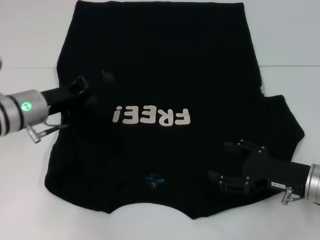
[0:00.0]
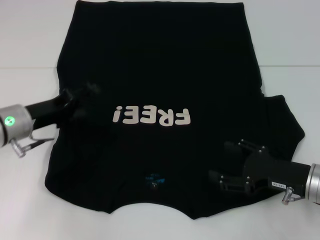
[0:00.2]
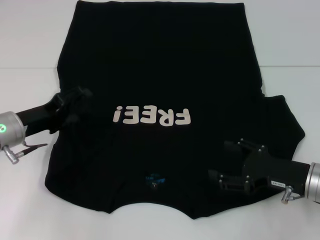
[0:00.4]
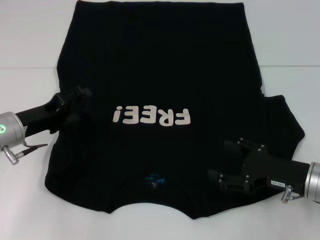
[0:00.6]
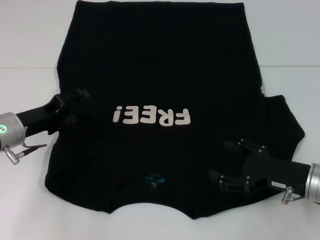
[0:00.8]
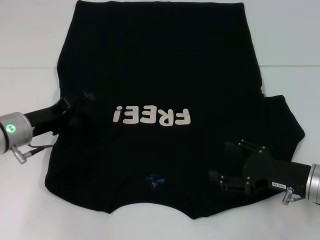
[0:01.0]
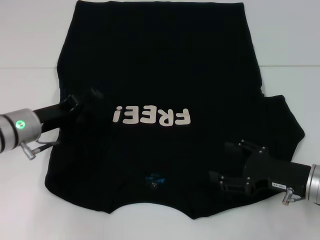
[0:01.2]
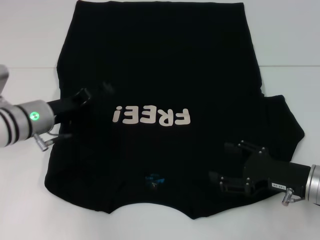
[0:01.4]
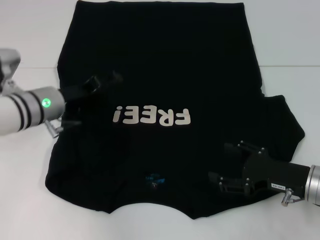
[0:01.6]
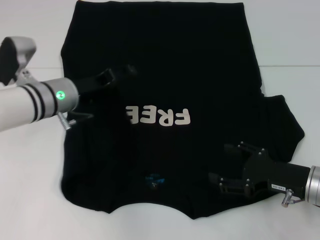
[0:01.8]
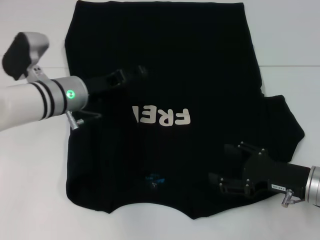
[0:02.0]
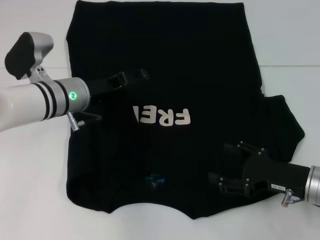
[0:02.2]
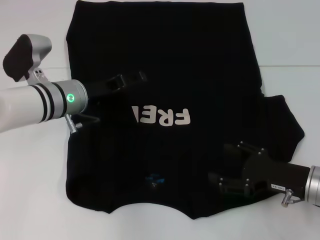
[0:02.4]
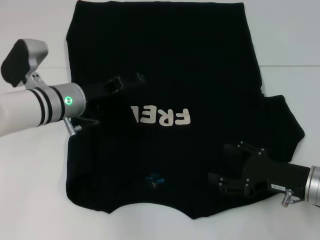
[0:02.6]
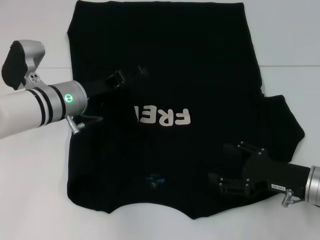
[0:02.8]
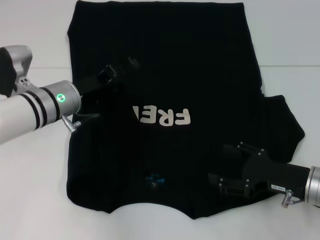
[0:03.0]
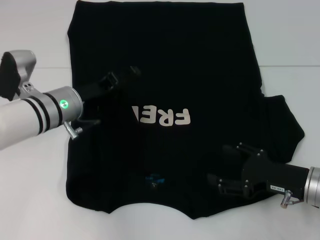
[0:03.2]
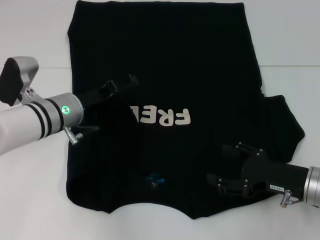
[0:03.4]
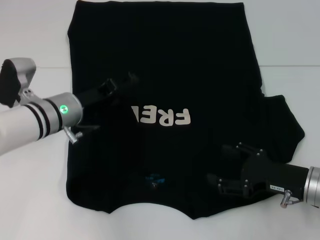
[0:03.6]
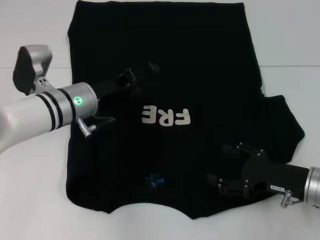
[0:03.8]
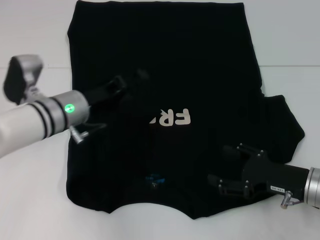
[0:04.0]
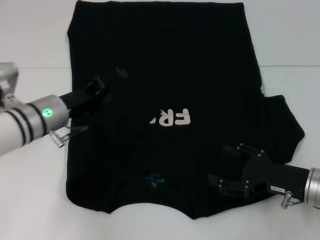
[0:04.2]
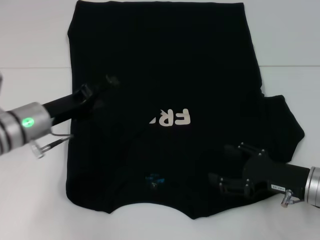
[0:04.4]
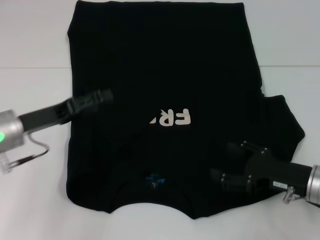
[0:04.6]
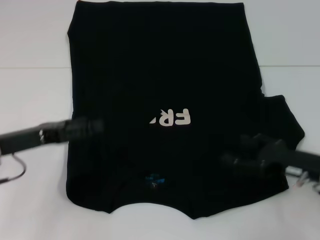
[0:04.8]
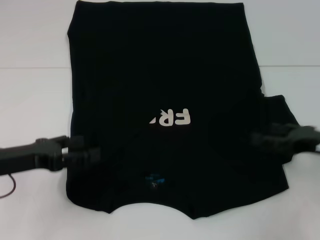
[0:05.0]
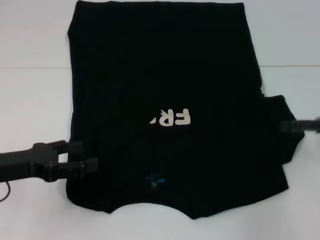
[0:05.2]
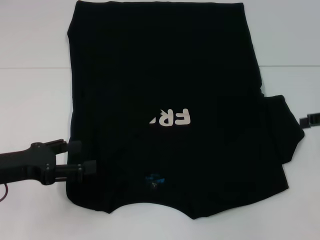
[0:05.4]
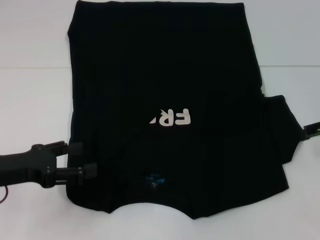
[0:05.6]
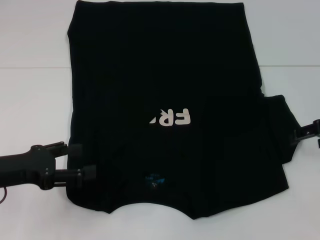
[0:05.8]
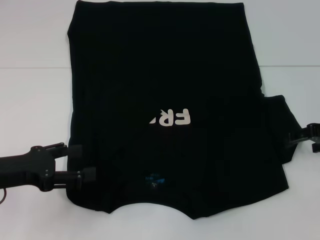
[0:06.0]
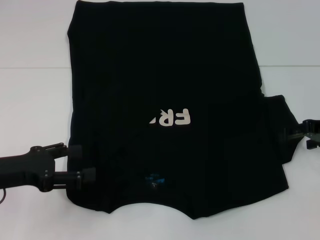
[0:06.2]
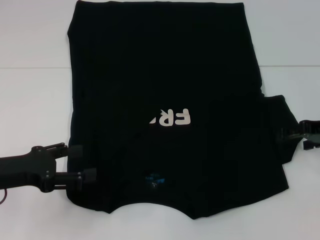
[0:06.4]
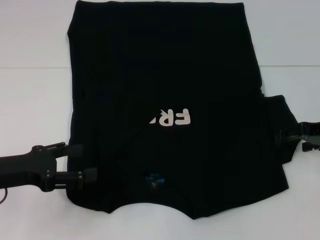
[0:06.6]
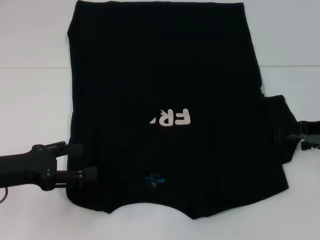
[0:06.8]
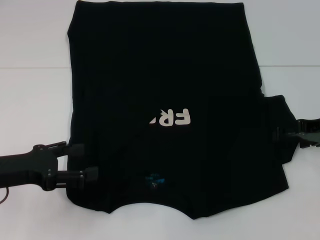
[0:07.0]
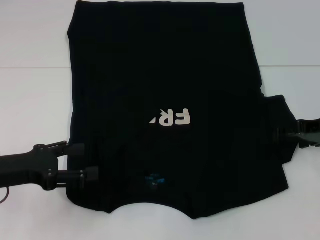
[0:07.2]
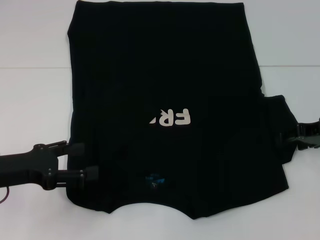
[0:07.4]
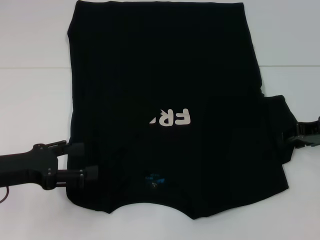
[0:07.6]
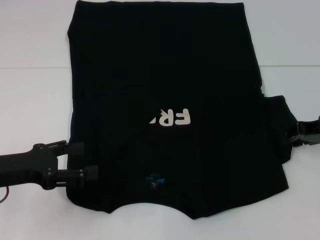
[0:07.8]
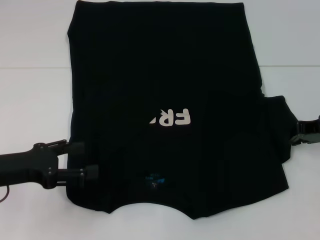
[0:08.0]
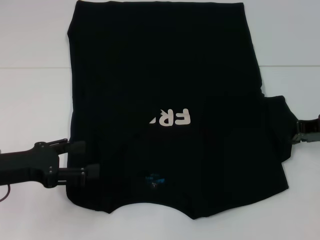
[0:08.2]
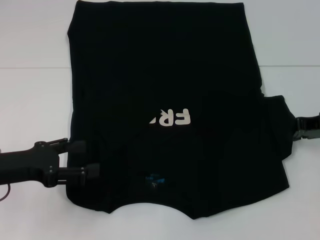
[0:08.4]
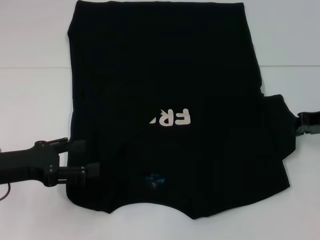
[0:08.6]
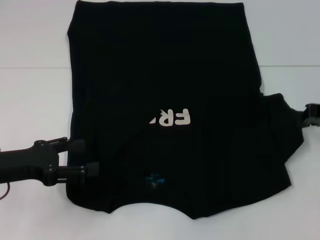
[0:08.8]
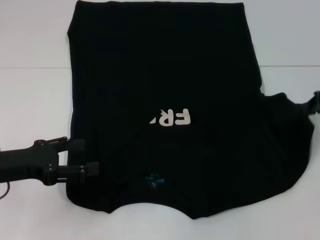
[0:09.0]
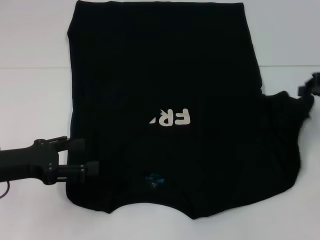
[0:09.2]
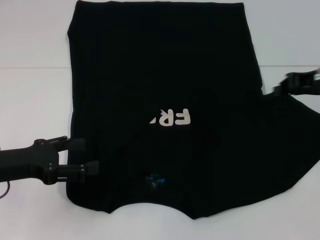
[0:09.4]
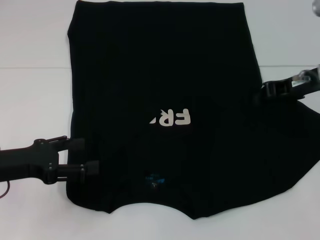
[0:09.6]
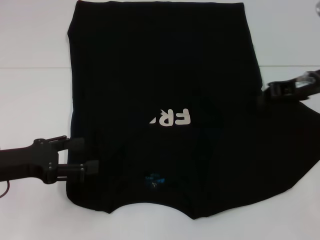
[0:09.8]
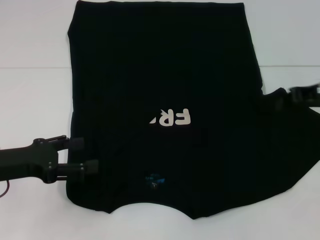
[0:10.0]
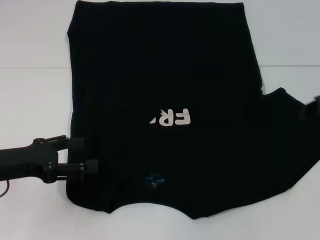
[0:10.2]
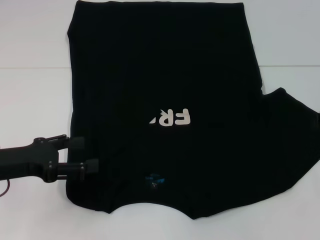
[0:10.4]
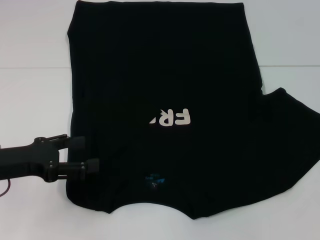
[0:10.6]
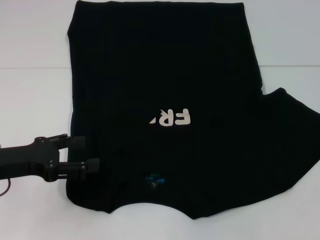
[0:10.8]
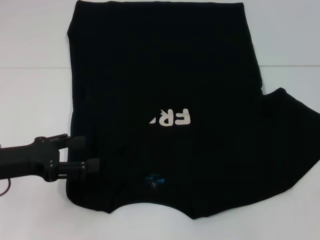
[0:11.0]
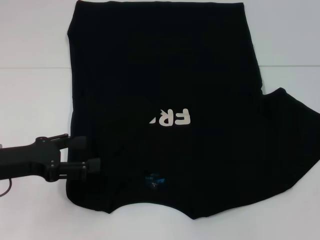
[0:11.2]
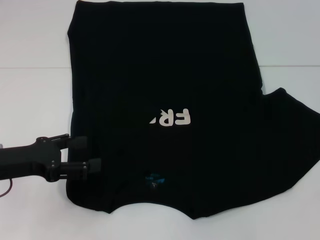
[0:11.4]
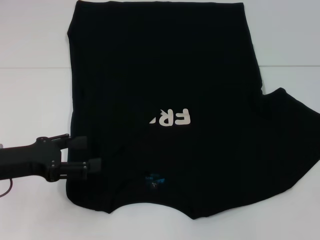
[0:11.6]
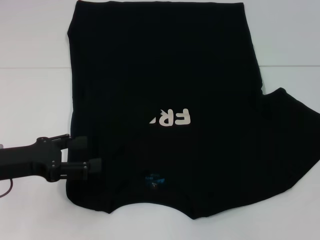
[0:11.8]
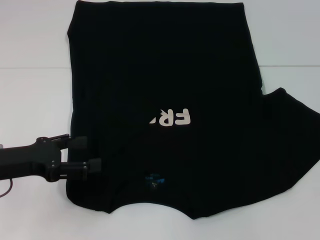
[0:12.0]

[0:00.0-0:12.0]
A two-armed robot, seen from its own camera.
Step, 0:00.0 to 0:04.4: Fold the bottom left sleeve with your left hand.
0:00.0 to 0:01.6: There are only small adjustments of the grippers.
0:01.6 to 0:03.0: There are only small adjustments of the grippers.
0:03.0 to 0:04.4: The left gripper moves approximately 5 cm.
0:04.4 to 0:06.0: The left gripper heads backward and to the left, covering some 10 cm. The right gripper moves upward, forward and to the right, approximately 15 cm.
0:06.0 to 0:07.6: There are only small adjustments of the grippers.
0:07.6 to 0:09.0: The right gripper closes up.
0:09.0 to 0:10.4: The right gripper moves some 10 cm to the left and comes back, and opens.

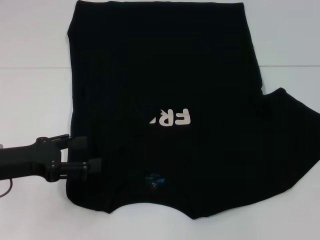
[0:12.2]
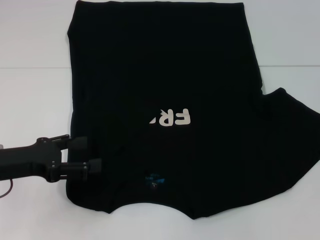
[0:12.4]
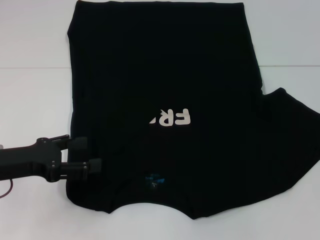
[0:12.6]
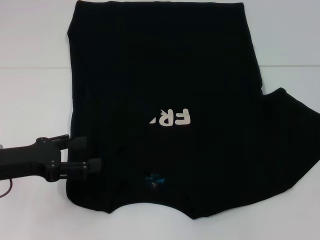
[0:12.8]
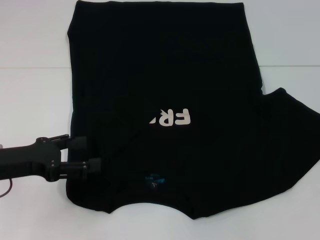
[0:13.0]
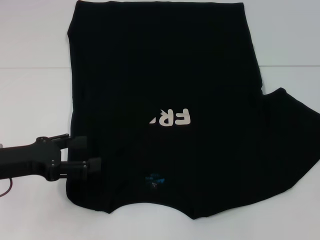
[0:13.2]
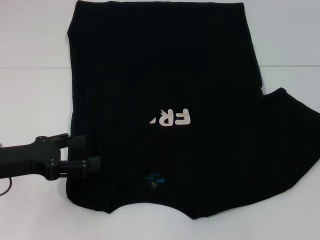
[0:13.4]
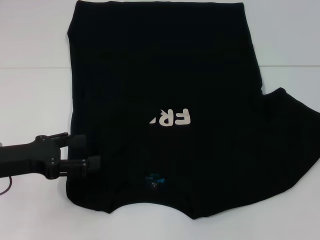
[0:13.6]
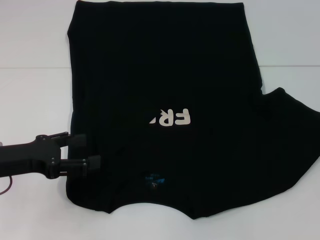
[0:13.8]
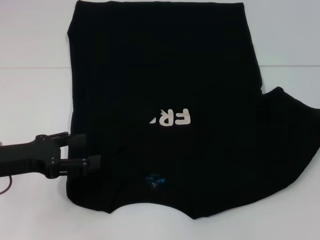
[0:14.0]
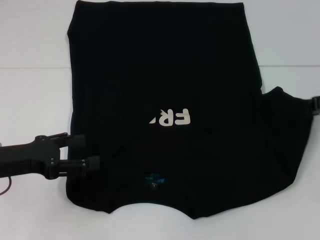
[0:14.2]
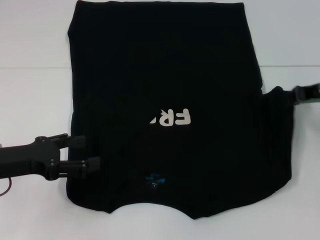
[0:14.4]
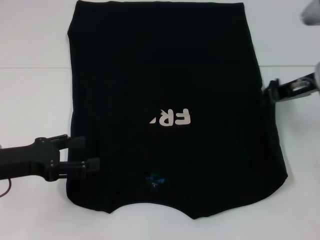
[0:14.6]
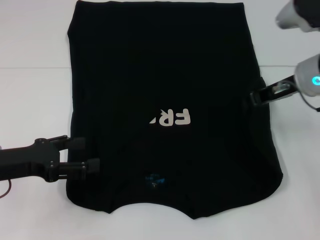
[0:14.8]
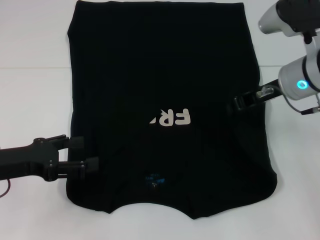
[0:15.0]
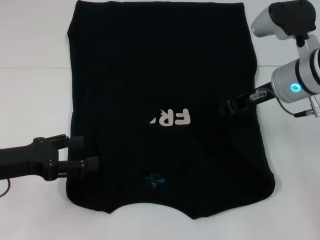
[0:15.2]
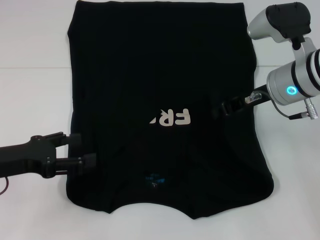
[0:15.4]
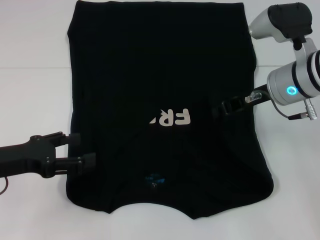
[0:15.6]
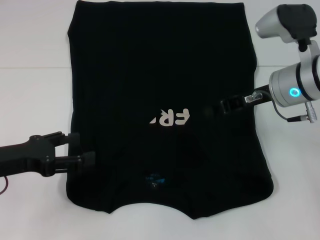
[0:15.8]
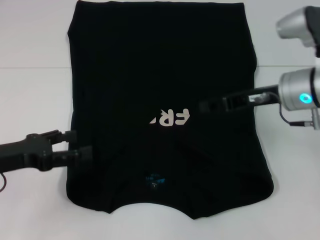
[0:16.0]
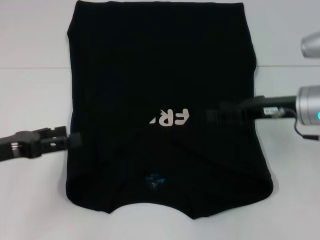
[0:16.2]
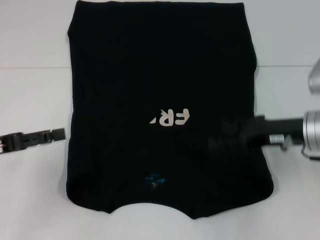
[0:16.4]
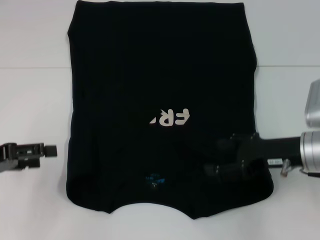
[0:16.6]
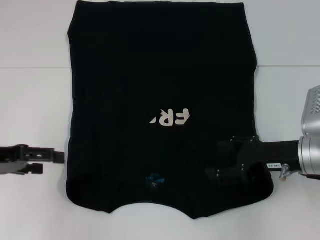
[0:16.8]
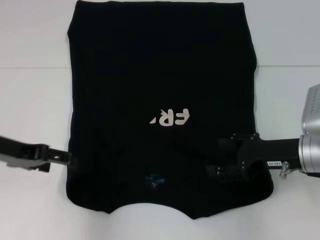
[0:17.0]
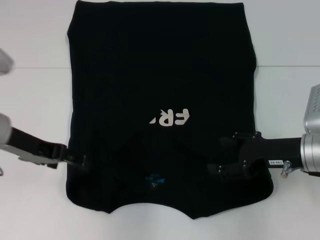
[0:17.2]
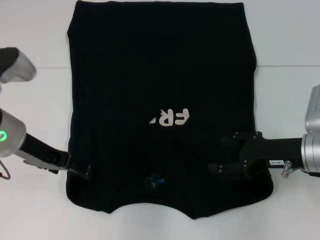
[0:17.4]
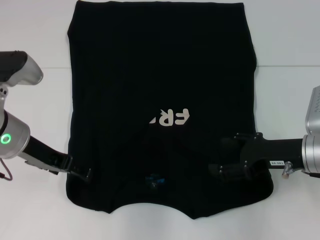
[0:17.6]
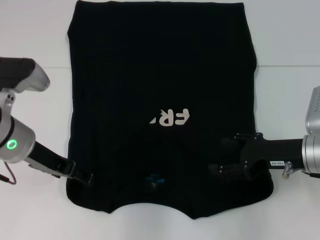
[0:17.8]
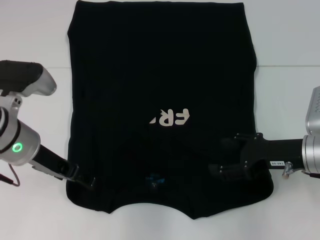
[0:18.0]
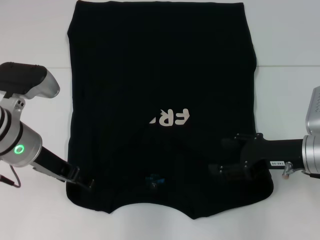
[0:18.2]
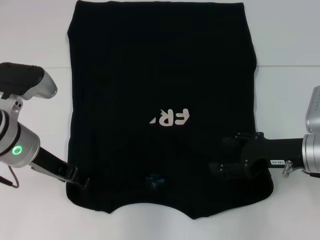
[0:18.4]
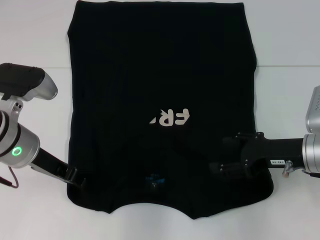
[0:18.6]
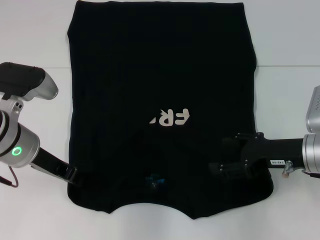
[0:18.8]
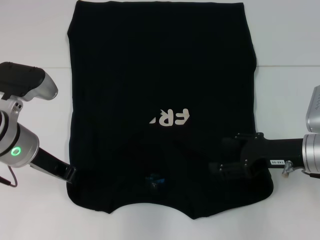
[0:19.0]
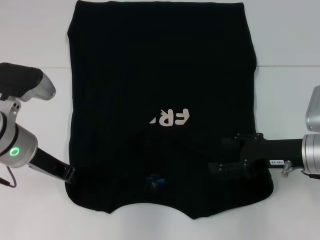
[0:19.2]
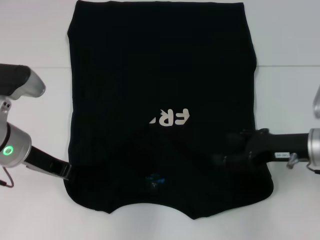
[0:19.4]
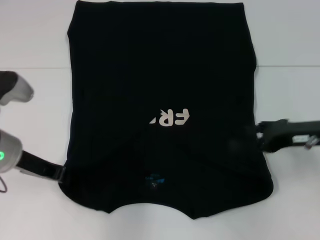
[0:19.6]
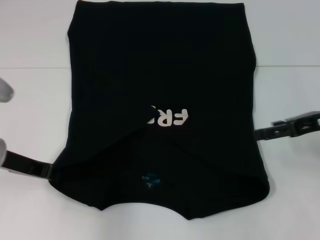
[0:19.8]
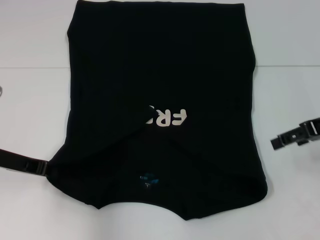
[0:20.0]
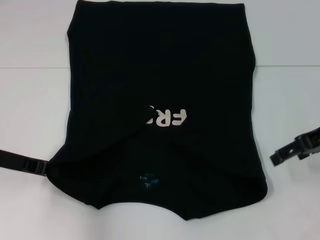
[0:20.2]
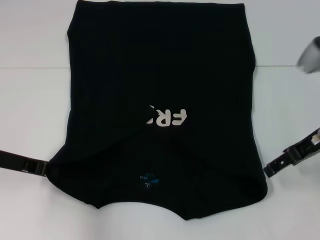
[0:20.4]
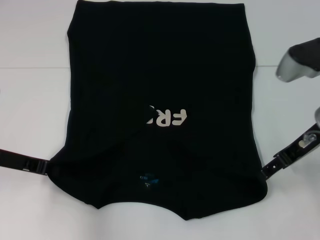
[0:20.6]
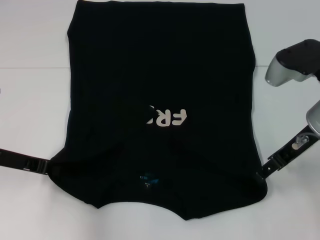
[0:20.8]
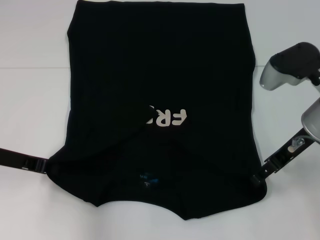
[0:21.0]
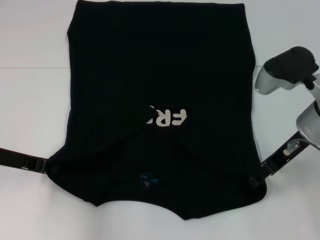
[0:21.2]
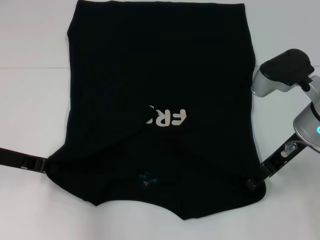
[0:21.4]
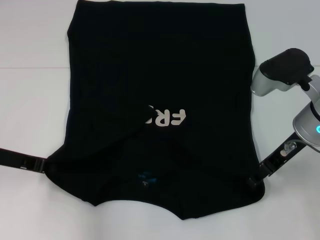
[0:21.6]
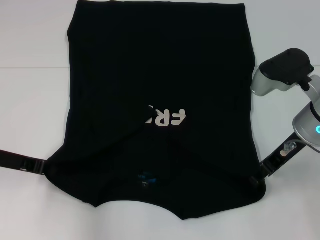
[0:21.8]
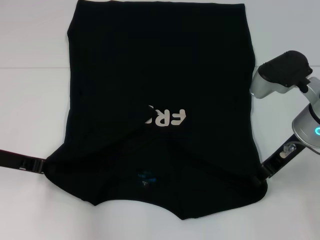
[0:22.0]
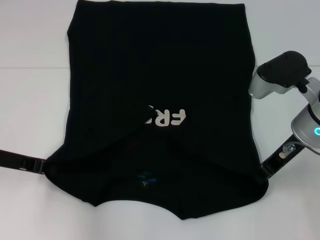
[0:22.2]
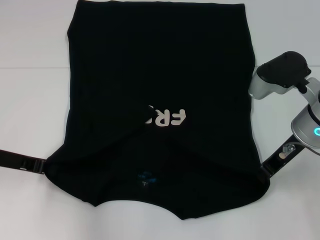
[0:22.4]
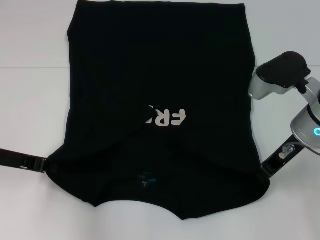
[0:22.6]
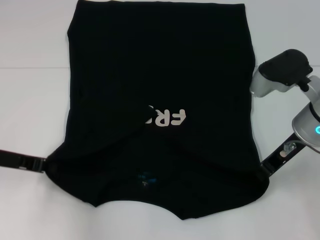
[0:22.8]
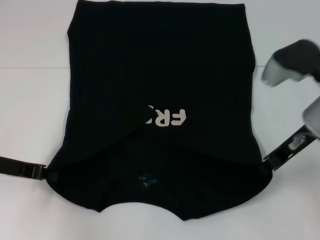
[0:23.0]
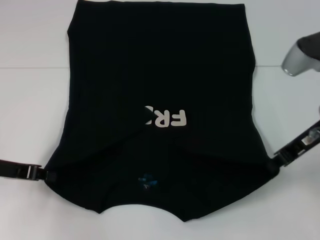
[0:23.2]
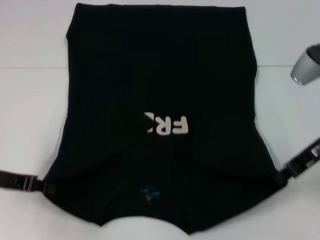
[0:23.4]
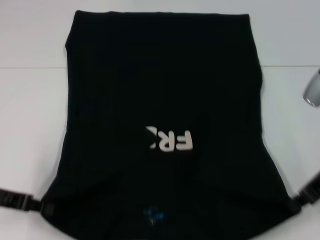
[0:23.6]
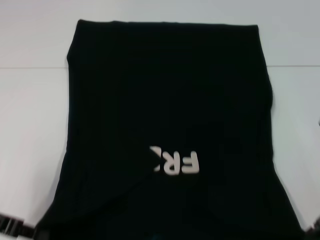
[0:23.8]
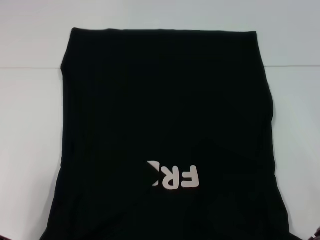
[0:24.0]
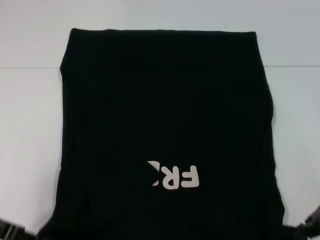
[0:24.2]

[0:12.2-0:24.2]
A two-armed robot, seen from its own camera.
Step, 0:12.2 to 0:16.2: Fold the bottom right sleeve with your right hand.
Step, 0:16.4 to 0:19.8: Grab the bottom left corner with your left hand.
Step, 0:20.0 to 0:23.0: Grab the bottom right corner with your right hand.
0:13.8 to 0:15.2: The right gripper goes approximately 15 cm to the left.
0:15.2 to 0:16.6: The right gripper moves backward and downward, roughly 10 cm, and opens its fingers. Meanwhile the left gripper goes approximately 5 cm to the left.
0:16.6 to 0:18.2: The left gripper goes some 15 cm to the right.
0:18.2 to 0:19.8: The right gripper is displaced upward by roughly 10 cm. Meanwhile the left gripper is displaced to the left by some 5 cm, and closes.
0:19.8 to 0:21.2: The right gripper heads to the left, covering roughly 10 cm.
0:21.2 to 0:22.6: The right gripper closes up.
0:22.6 to 0:24.2: The right gripper heads to the right and backward, covering roughly 10 cm, while the left gripper heads backward, covering approximately 5 cm.
